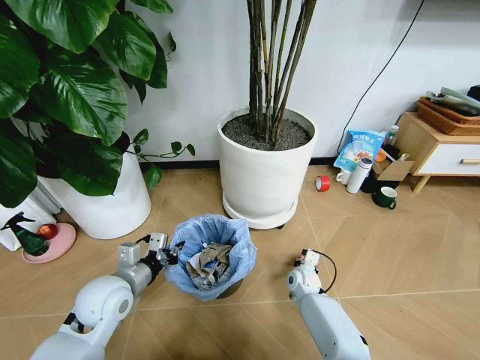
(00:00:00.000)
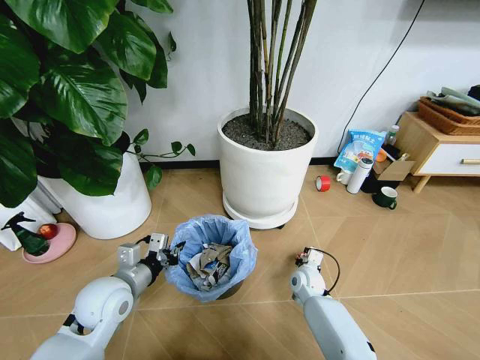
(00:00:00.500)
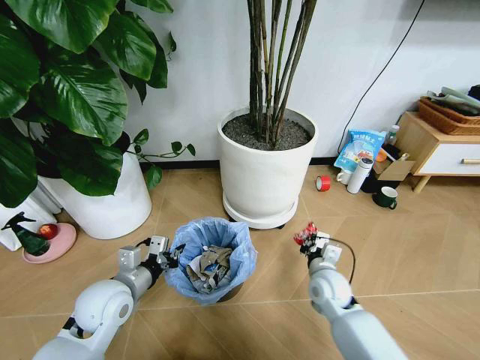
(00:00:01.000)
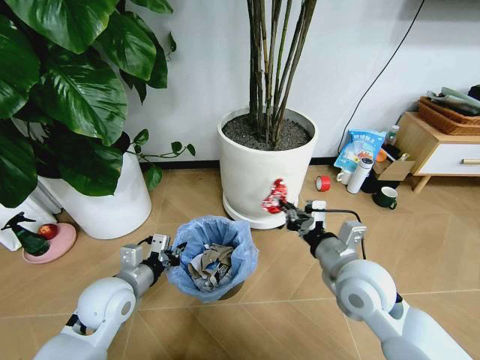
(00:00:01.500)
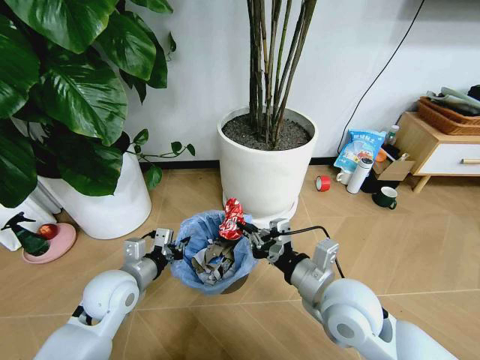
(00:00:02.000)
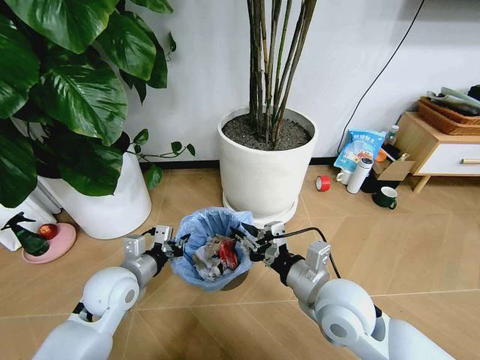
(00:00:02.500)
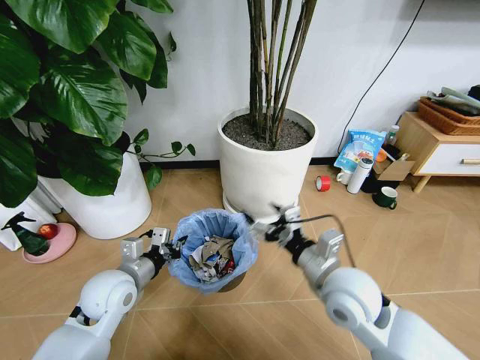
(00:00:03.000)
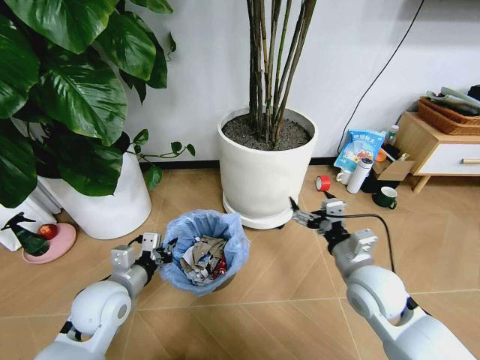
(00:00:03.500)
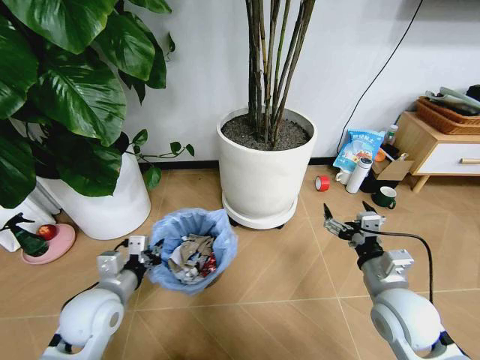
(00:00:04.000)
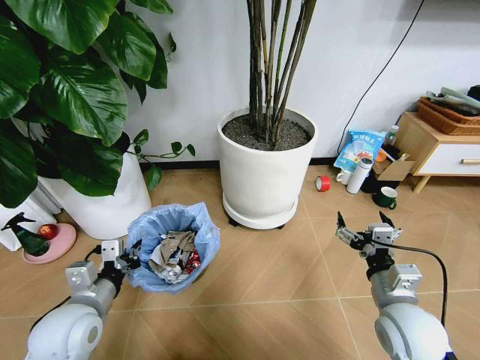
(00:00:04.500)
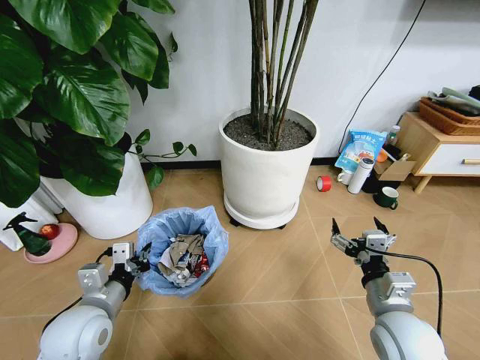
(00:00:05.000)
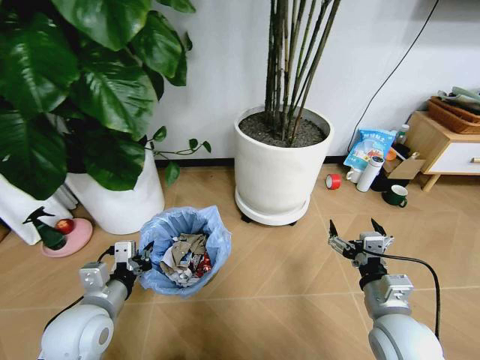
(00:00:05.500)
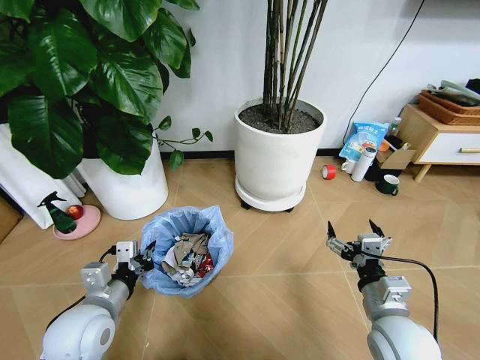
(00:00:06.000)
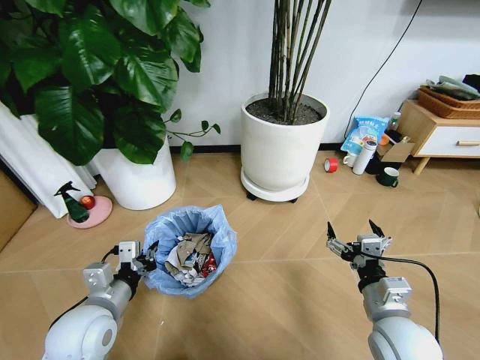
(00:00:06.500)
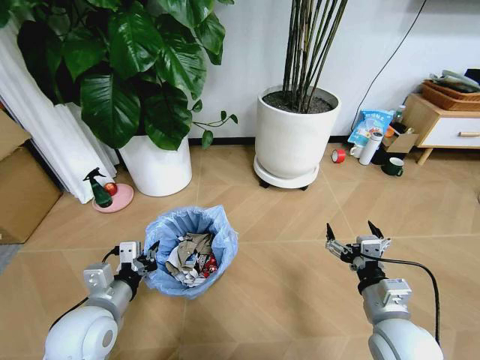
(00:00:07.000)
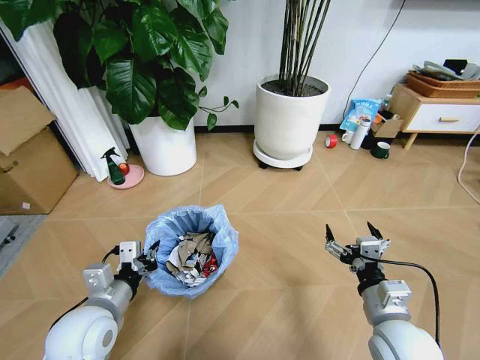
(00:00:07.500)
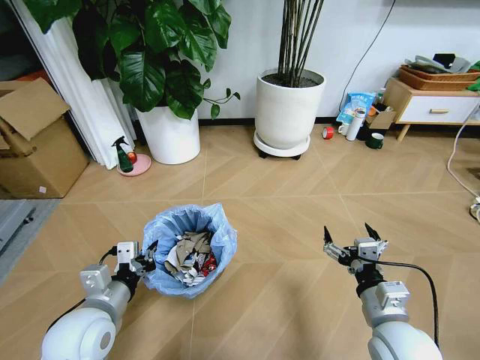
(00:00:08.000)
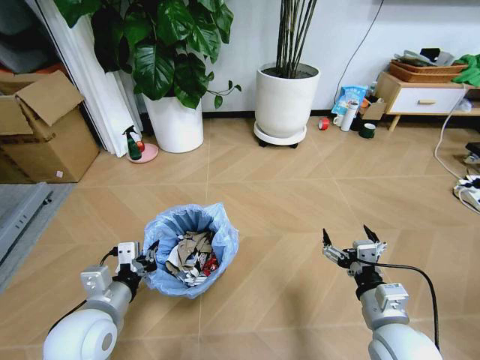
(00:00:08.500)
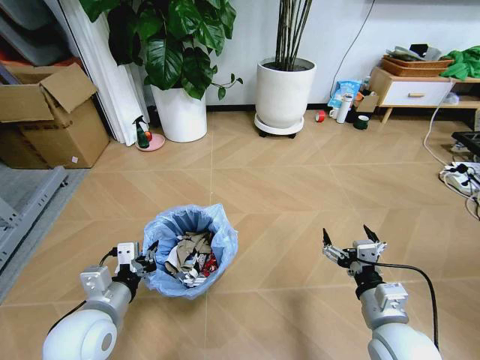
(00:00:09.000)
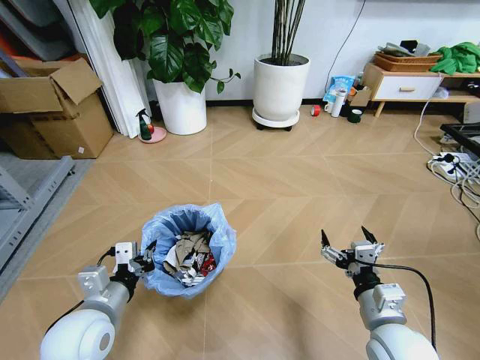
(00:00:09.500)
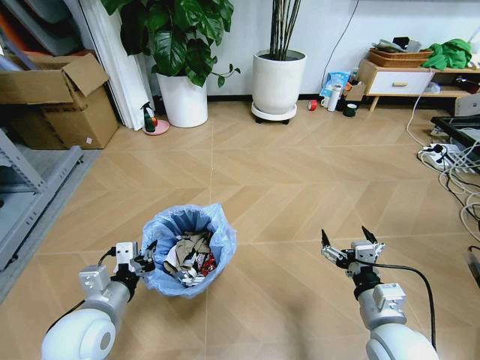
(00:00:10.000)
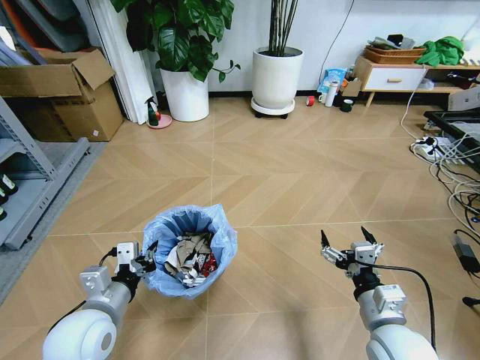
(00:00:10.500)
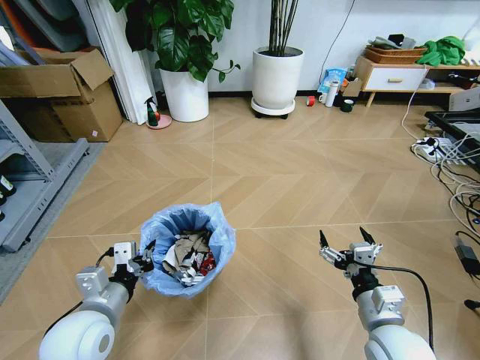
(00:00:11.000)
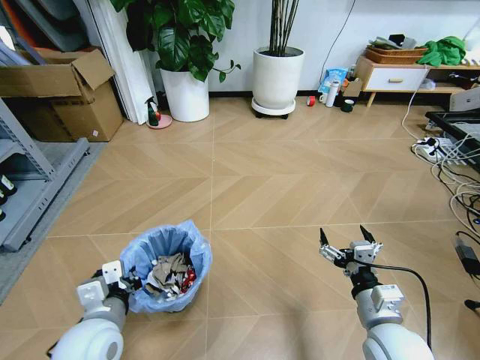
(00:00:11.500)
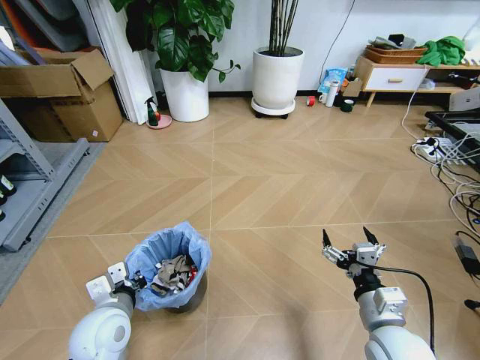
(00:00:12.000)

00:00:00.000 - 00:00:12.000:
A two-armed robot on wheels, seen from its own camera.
Task of the whole recording: Pick up the trash bin and place the garbage on the floor into it.
00:00:00.000 - 00:00:02.000: The right gripper travels upward and backward by some 30 cm.
00:00:02.000 - 00:00:04.000: The right gripper heads to the right, covering roughly 10 cm, and opens.

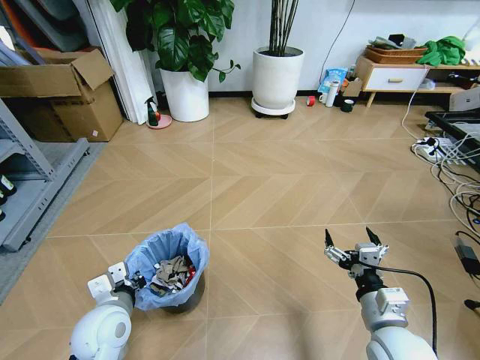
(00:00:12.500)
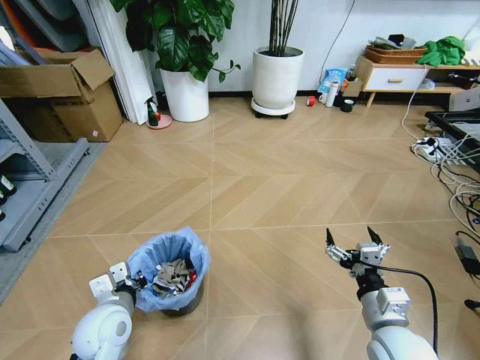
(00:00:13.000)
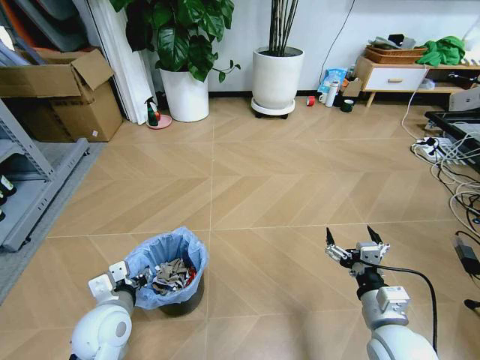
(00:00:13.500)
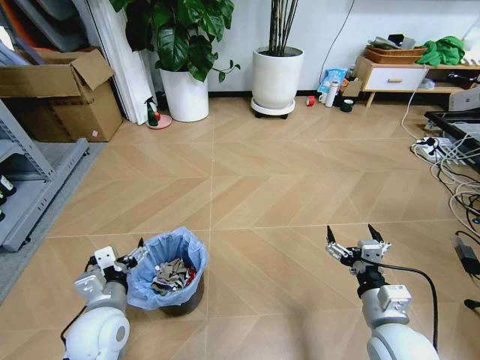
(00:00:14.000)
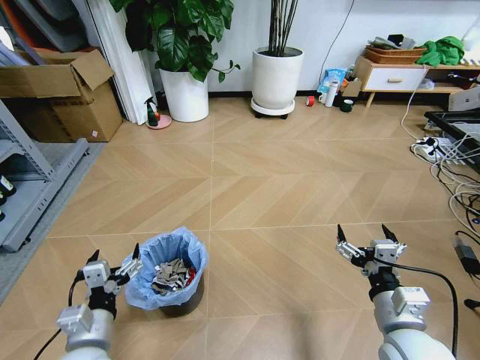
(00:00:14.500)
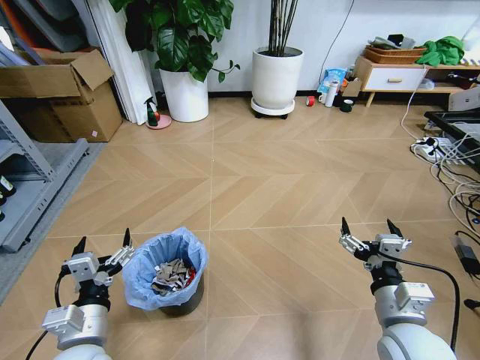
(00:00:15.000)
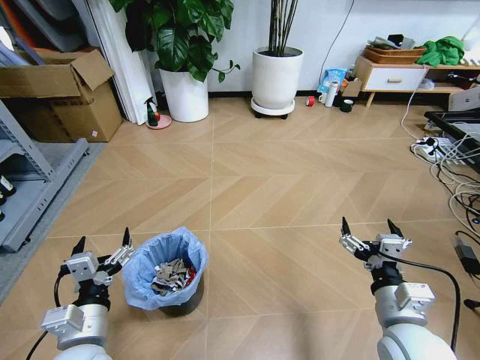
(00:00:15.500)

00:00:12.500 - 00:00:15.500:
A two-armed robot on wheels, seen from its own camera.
Task of the whole recording: Pick up the trash bin and place the garbage on the floor into it.
00:00:12.500 - 00:00:14.000: The left gripper opens up.
00:00:14.000 - 00:00:15.500: The left gripper travels backward by roughly 5 cm.

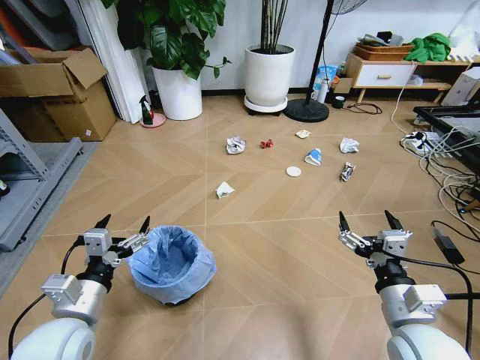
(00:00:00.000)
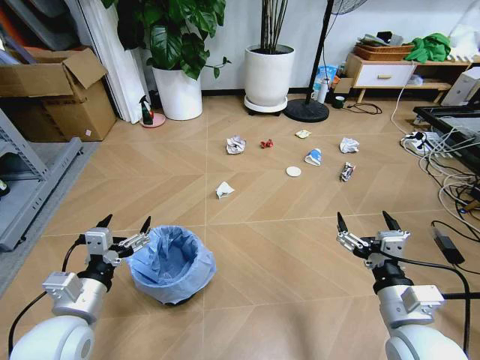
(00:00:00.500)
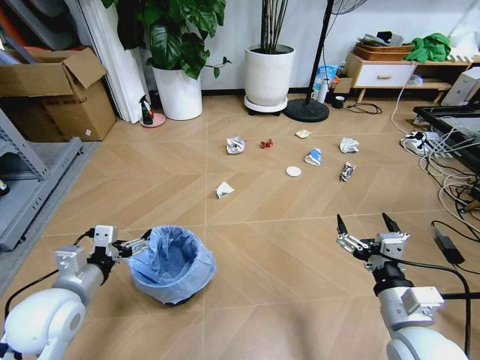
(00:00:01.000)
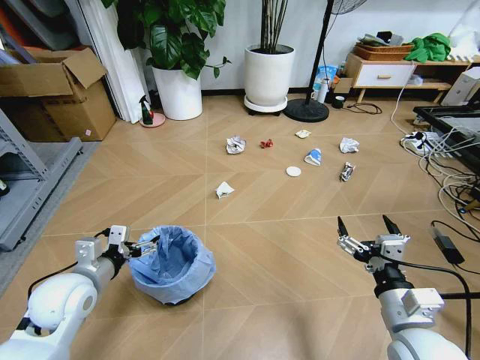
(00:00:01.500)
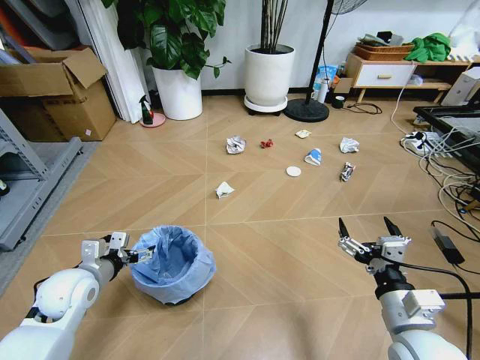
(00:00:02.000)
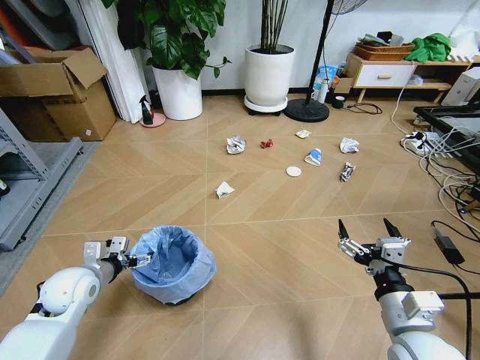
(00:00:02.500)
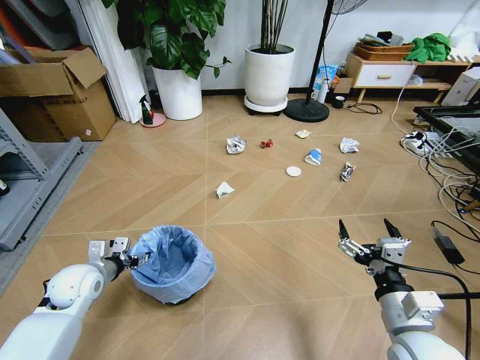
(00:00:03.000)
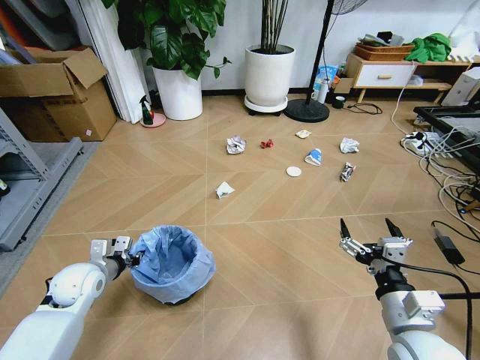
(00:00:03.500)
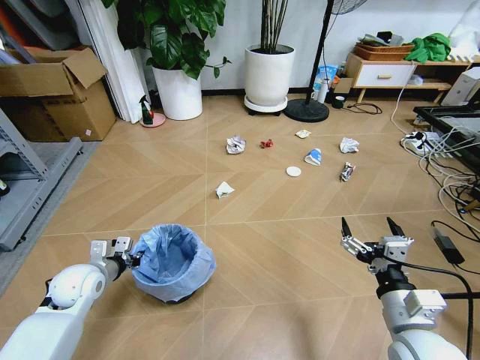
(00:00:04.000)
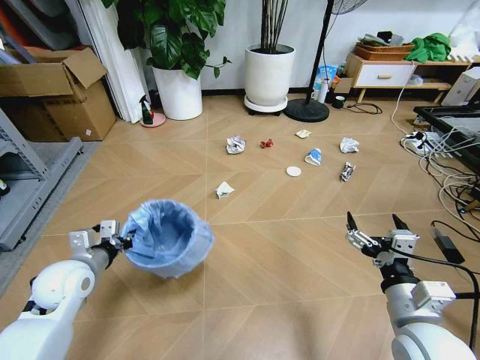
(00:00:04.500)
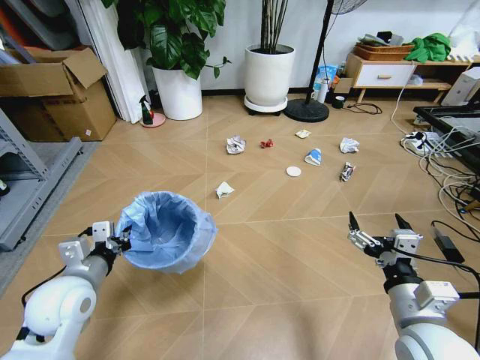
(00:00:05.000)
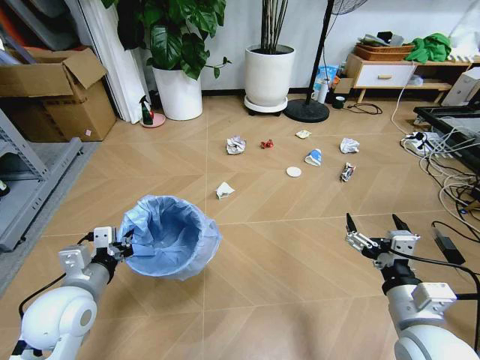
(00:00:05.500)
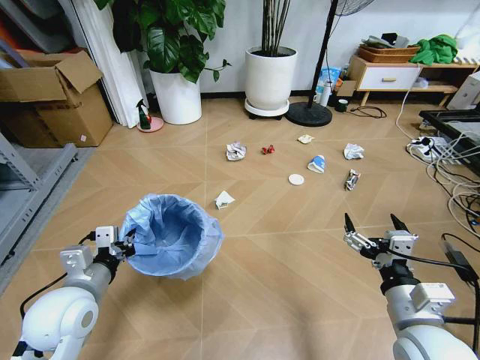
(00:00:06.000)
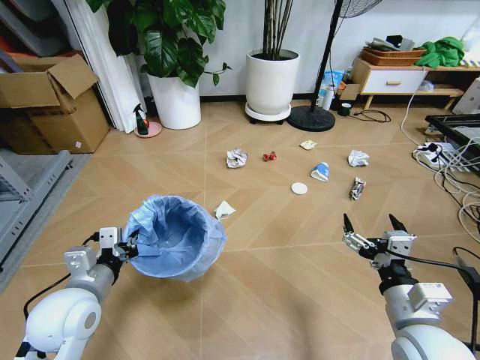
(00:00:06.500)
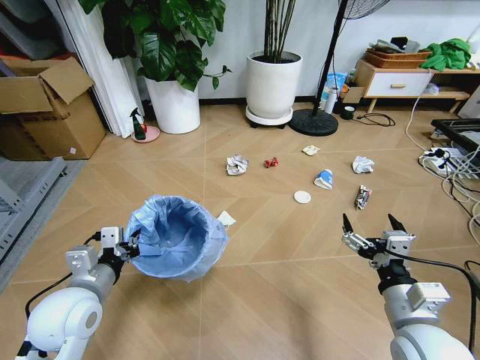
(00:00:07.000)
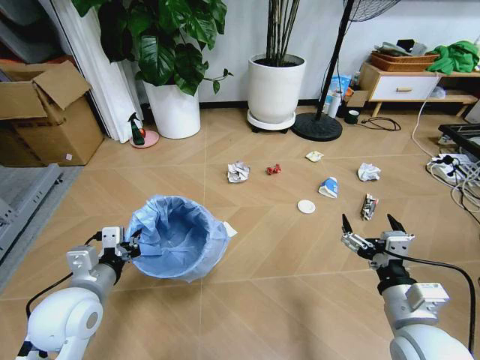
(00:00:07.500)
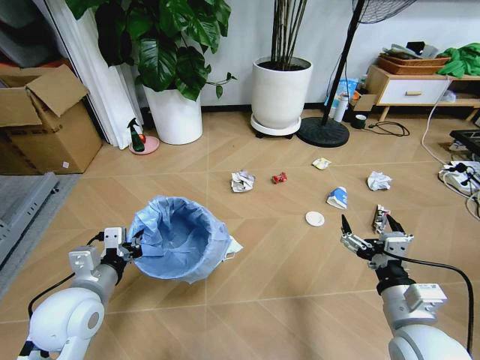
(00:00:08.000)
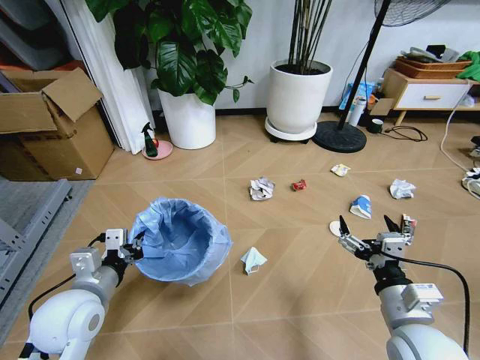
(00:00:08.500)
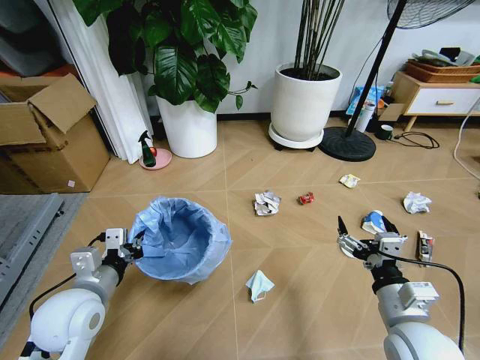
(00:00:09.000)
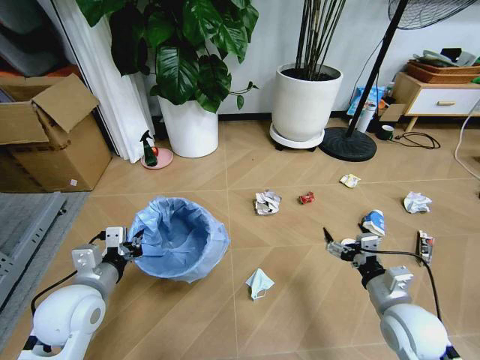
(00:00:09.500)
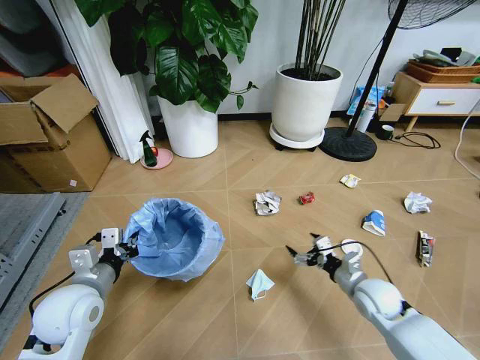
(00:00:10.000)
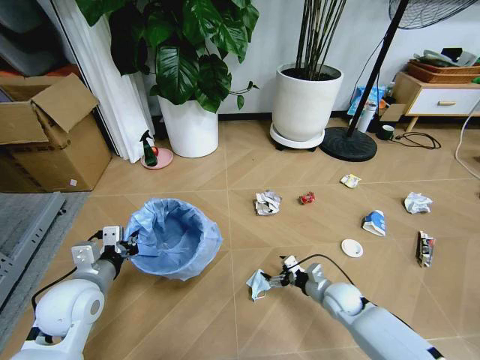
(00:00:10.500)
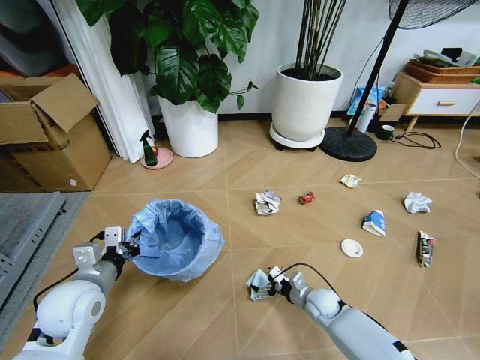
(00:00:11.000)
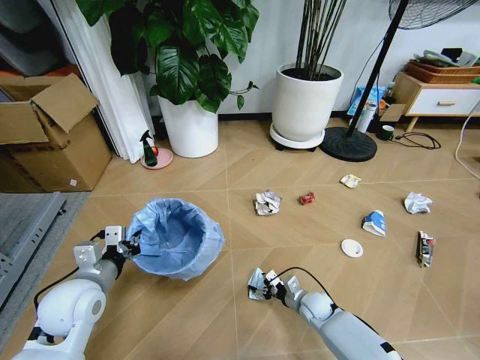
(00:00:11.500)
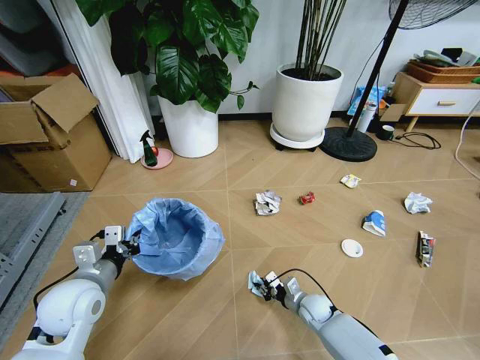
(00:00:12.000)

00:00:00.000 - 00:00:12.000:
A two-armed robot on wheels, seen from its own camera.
Task of the whole recording: Pick up the trash bin and place the garbage on the floor into it.
00:00:02.000 - 00:00:04.000: The left gripper shifts by some 5 cm, and closes its fingers.
00:00:04.000 - 00:00:06.000: The left gripper shifts roughly 15 cm backward, upward and to the right.
00:00:08.000 - 00:00:10.000: The right gripper is displaced forward and downward by approximately 20 cm.
00:00:10.000 - 00:00:12.000: The right gripper heads downward and to the left, covering roughly 20 cm, and closes up.
